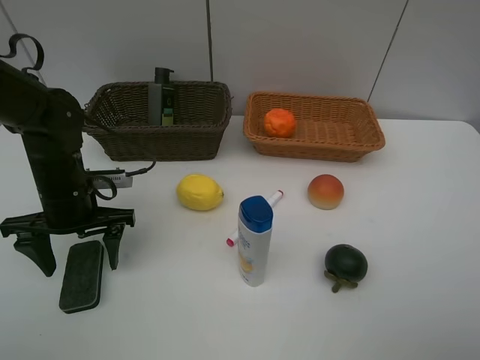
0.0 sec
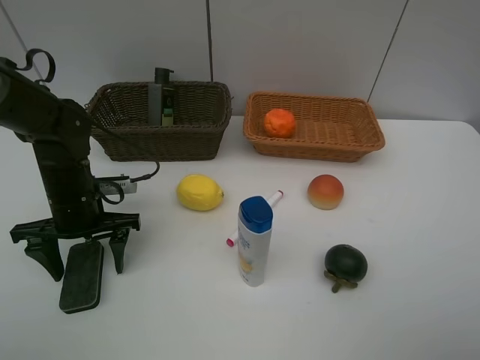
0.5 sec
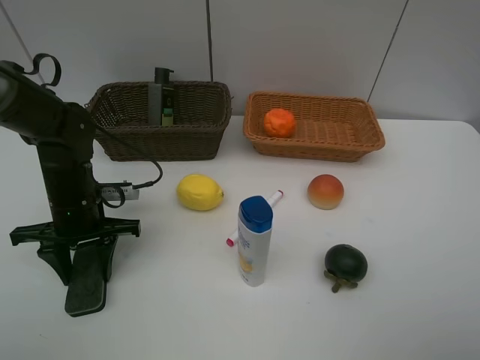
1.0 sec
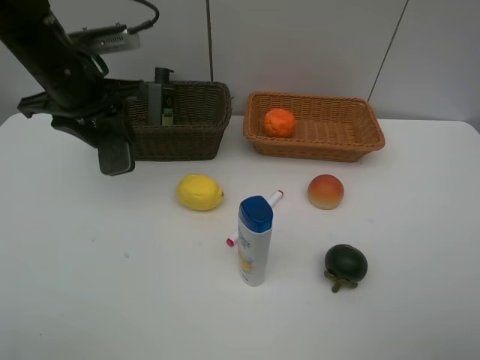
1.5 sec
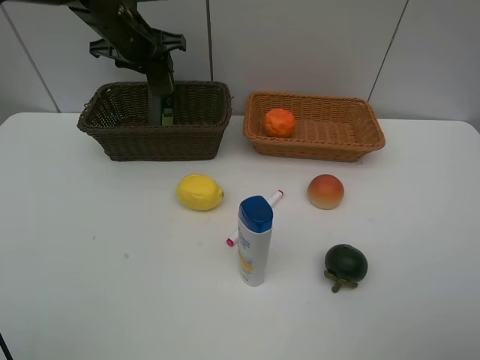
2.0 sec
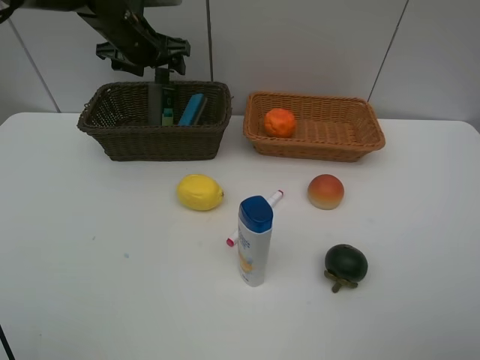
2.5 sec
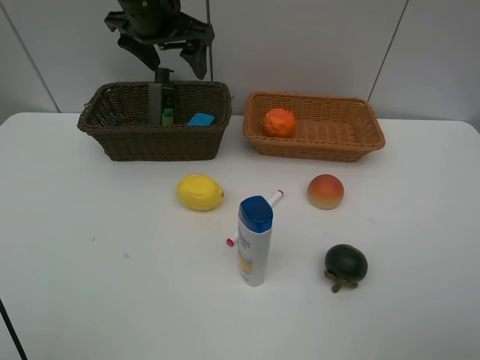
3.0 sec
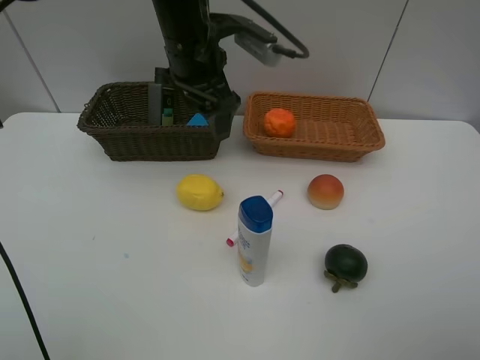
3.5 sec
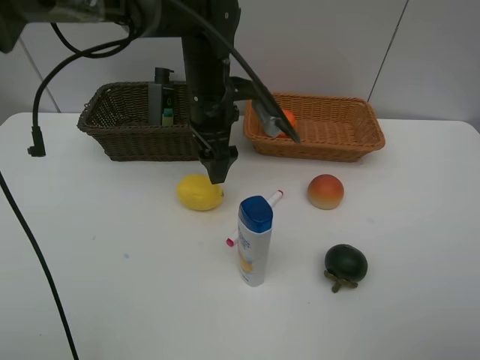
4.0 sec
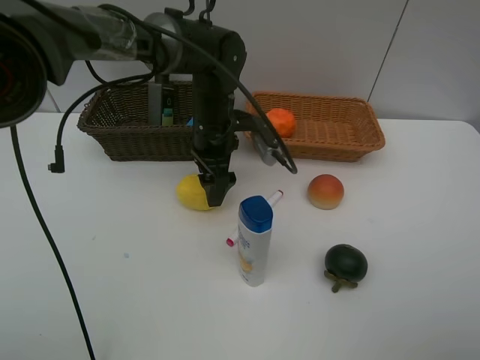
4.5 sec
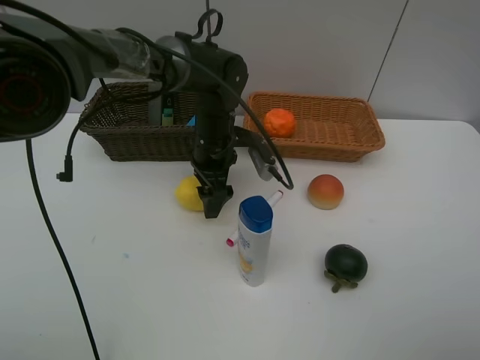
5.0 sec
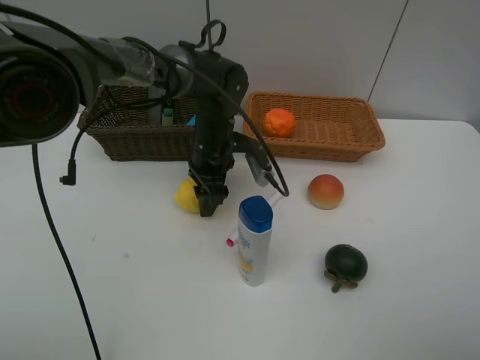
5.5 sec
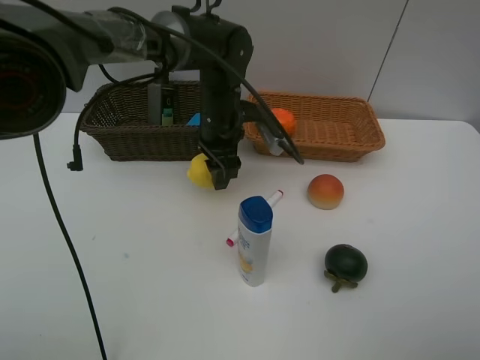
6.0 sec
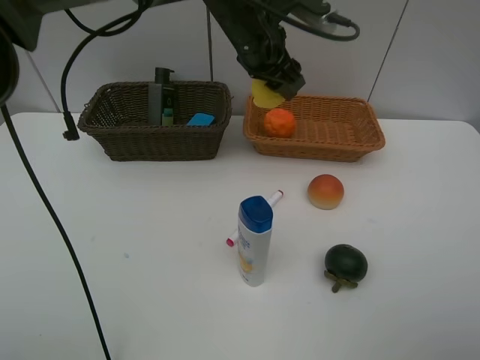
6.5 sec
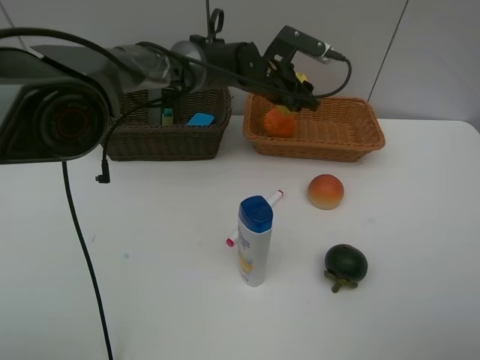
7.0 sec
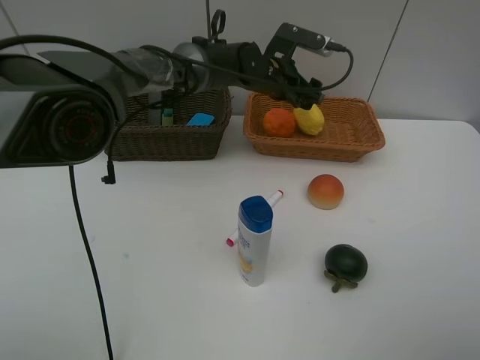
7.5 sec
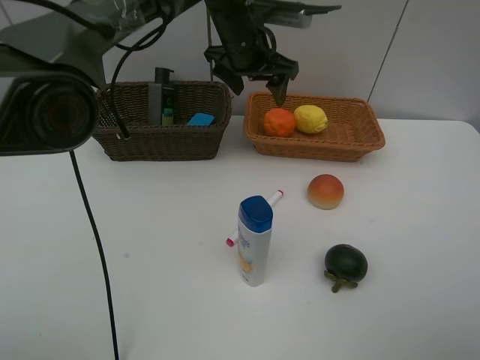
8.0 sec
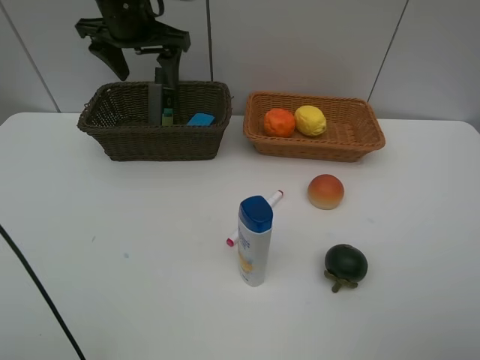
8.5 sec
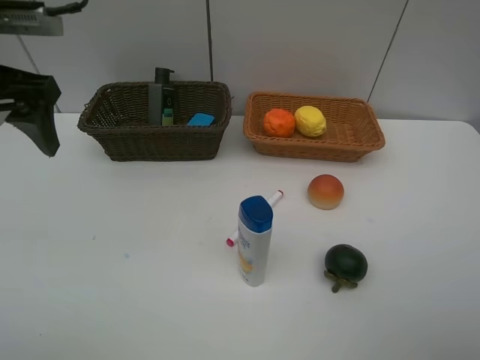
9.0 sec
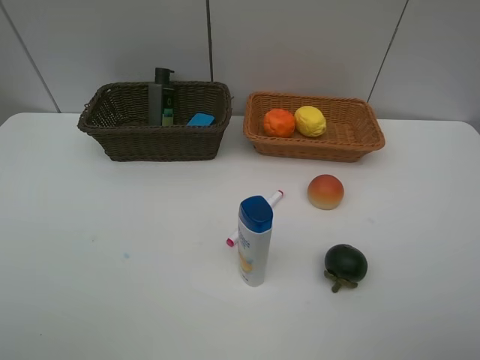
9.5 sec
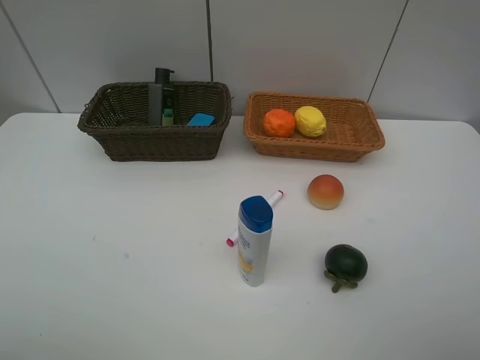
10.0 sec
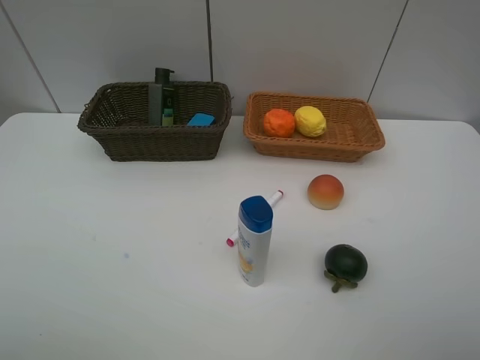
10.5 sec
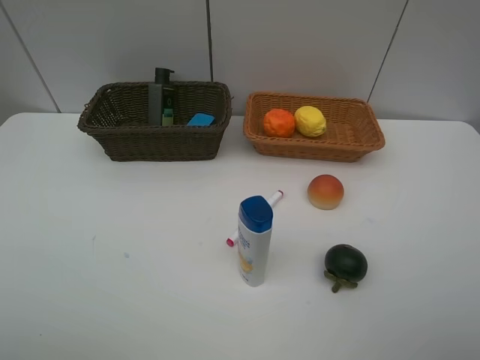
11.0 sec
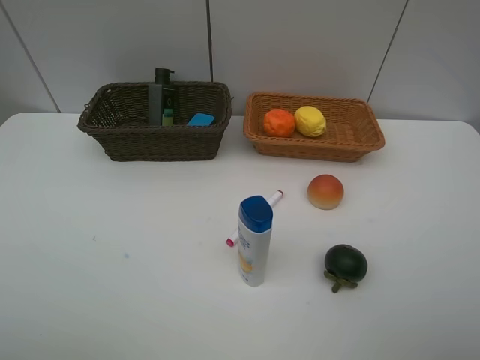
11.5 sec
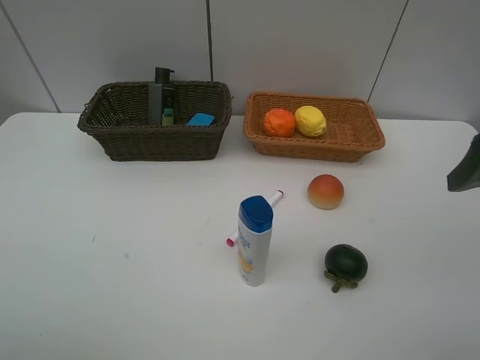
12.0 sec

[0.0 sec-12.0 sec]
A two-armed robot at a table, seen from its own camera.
Task of the whole recording: Place multiple objects separately in different baskets.
Step, 1.5 sec to 2.5 sec: Place the blackboard eraser in the dark basket with left gripper.
Step, 3.0 sec to 5.5 sec: Pick up the lemon with left gripper.
Step, 6.0 sec to 7.5 sec: Place the lemon in the light basket with left gripper.
0.0 sec to 2.0 sec: The left gripper moves forward and upward, about 25 cm, and closes up.
2.0 sec to 4.0 sec: The left gripper moves to the right and backward, roughly 20 cm, and opens its fingers.
4.0 sec to 6.0 sec: The left gripper closes.
6.0 sec to 8.0 sec: The left gripper goes up and down, about 10 cm each way, reversing 2 times, and opens up.
8.0 sec to 10.0 sec: The left gripper goes about 50 cm backward and to the left.
10.0 sec to 12.0 sec: The right gripper heads forward, covering roughly 20 cm.

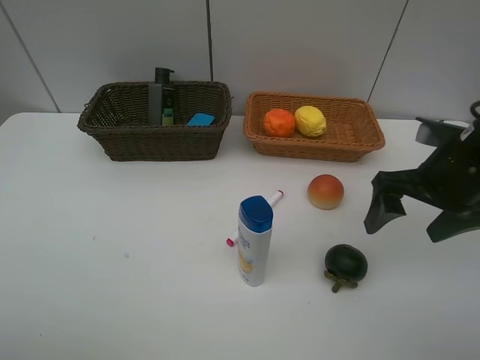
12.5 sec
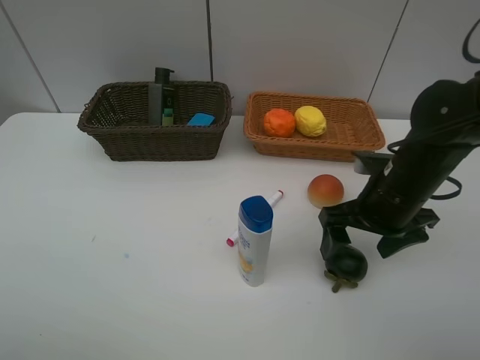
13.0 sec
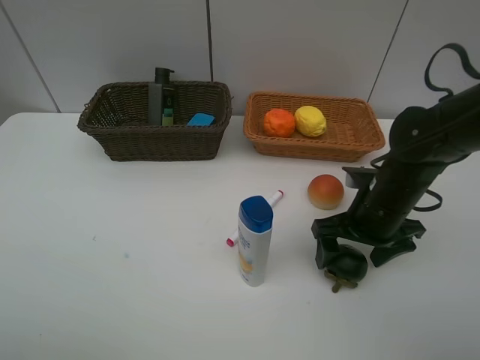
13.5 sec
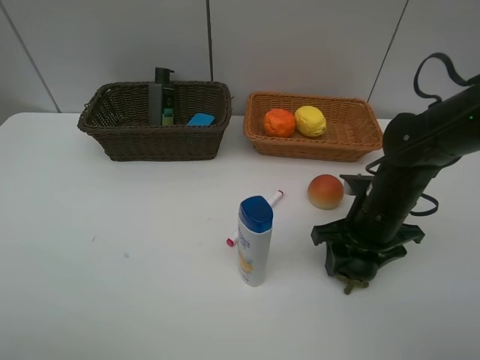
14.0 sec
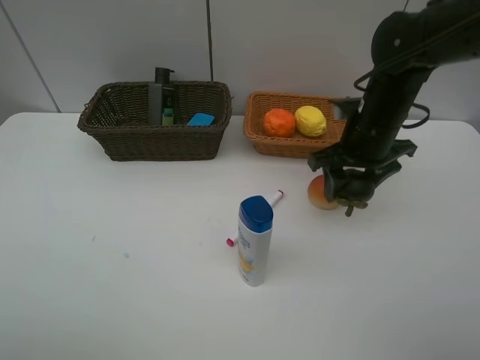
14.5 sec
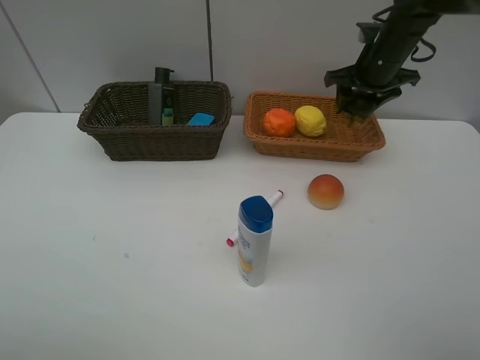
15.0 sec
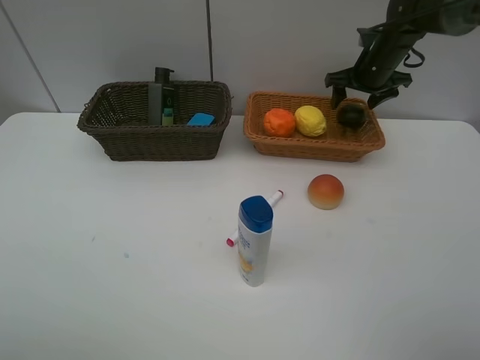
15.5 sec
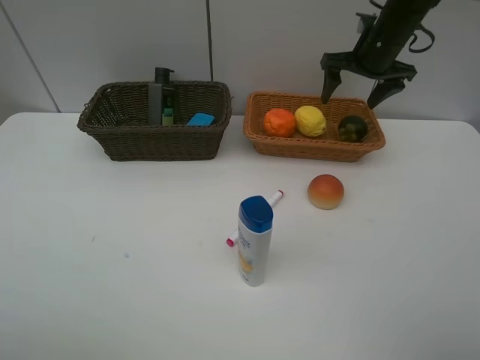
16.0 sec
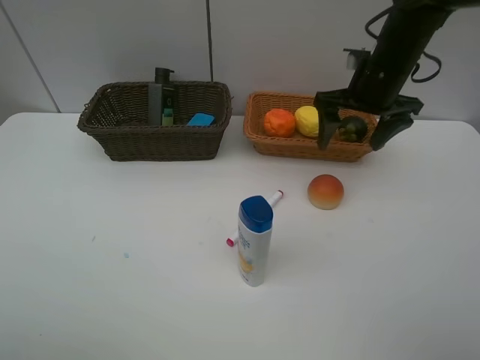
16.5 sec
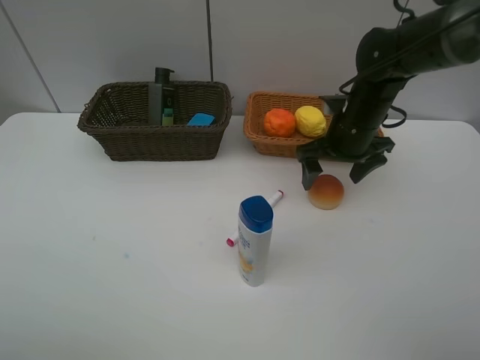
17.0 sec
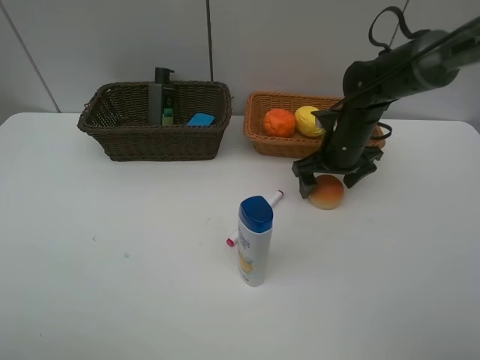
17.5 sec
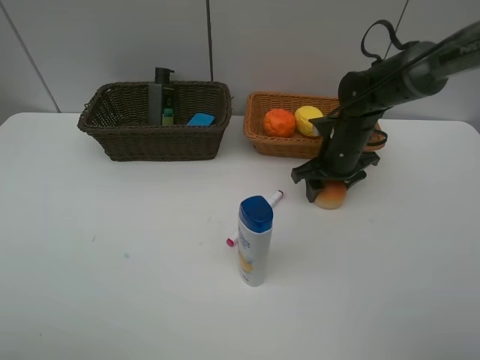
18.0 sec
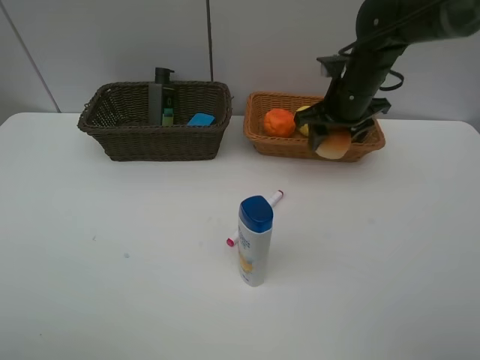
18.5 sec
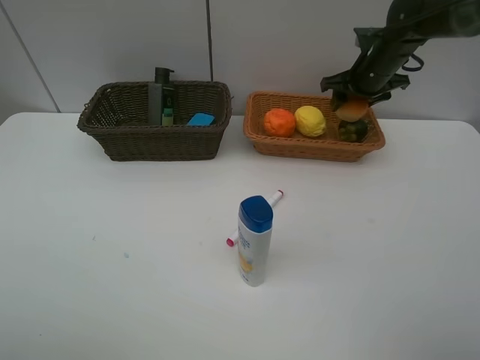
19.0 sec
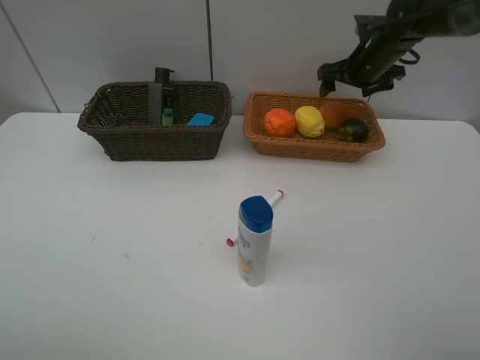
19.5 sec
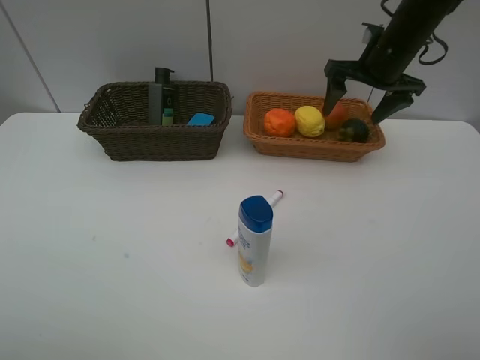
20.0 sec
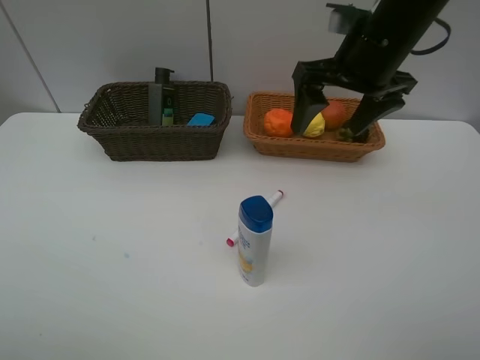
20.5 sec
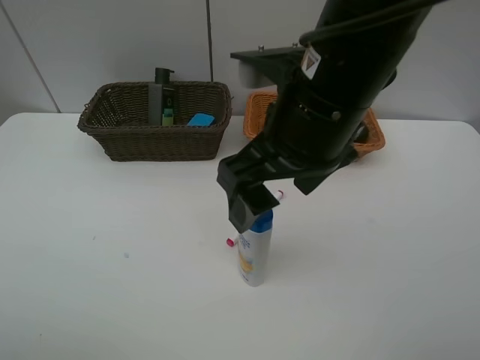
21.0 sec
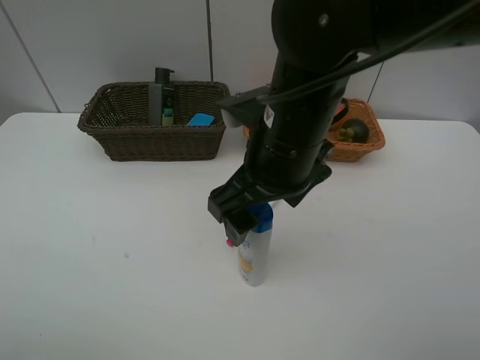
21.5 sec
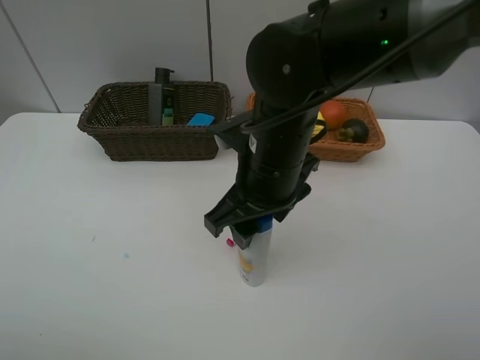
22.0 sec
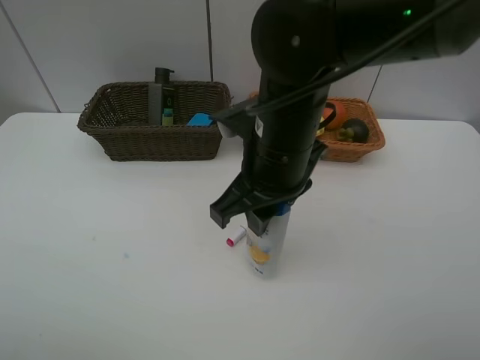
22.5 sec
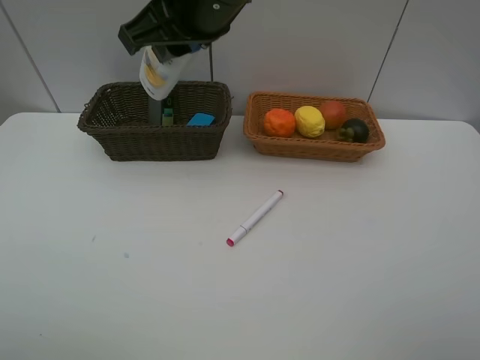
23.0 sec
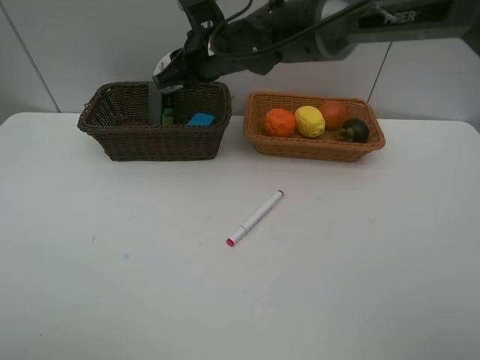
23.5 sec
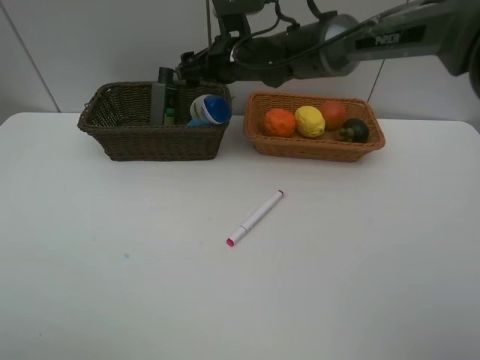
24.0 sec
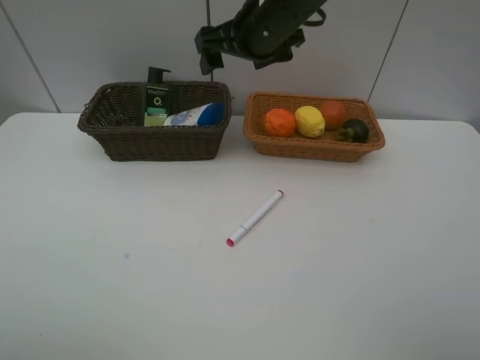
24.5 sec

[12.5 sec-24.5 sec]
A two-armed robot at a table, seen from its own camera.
Task of the whole recording: Place multiple objects separately in different baskets.
Step, 14.5 sec to 15.5 sec: Place the mangosteen in the light basket with right gripper.
Step, 16.0 sec to 18.0 sec: Pick up egg yolk pastry with right gripper.
Step, 18.5 sec to 19.5 sec: Place the egg yolk pastry in the light basket with right gripper.
Step, 20.0 sec to 22.5 sec: Pick up the shampoo with right gripper.
Step, 23.0 sec to 24.0 sec: Place the shampoo in the dark basket with right gripper.
12.5 sec to 14.5 sec: The right gripper shifts roughly 10 cm forward and to the left, and closes.
14.5 sec to 16.5 sec: The right gripper goes forward and returns, about 20 cm each way, and opens its fingers.
16.5 sec to 18.5 sec: The right gripper moves about 10 cm downward and comes back, and closes up.
18.5 sec to 20.5 sec: The right gripper heads backward and upward, covering approximately 15 cm, and opens up.
20.5 sec to 22.5 sec: The right gripper moves to the left, backward and downward, roughly 15 cm, and closes up.
22.5 sec to 24.5 sec: The right gripper heads forward, covering approximately 15 cm, and opens its fingers.

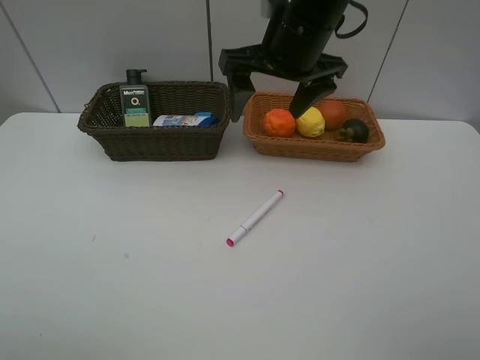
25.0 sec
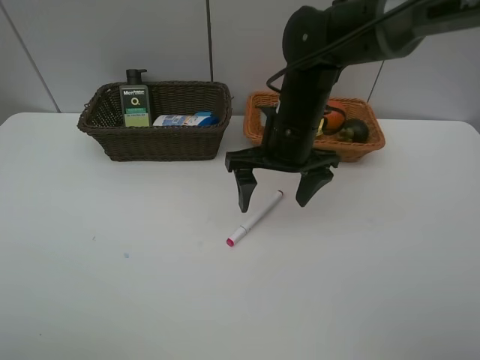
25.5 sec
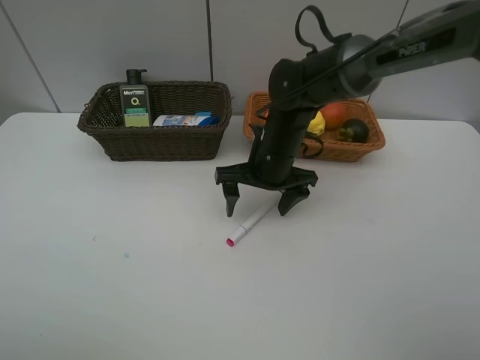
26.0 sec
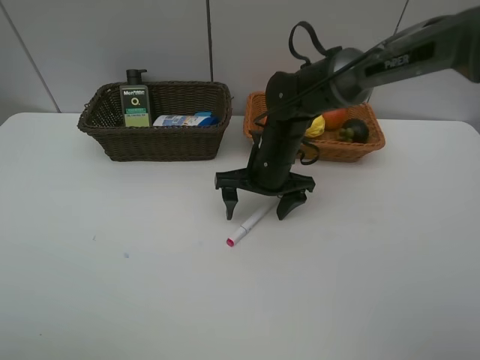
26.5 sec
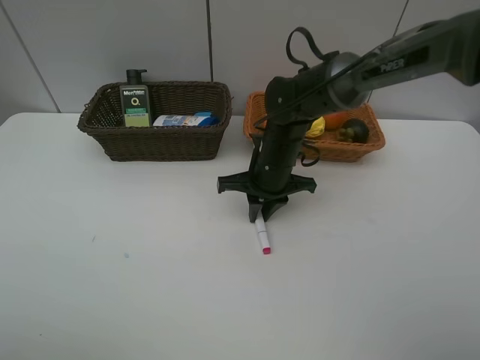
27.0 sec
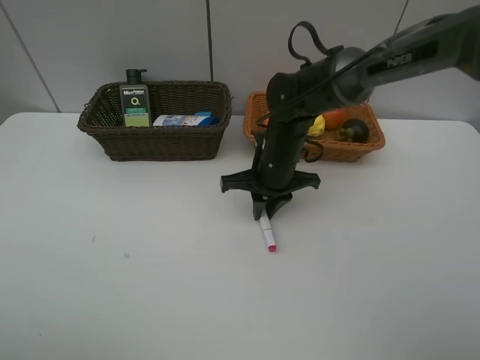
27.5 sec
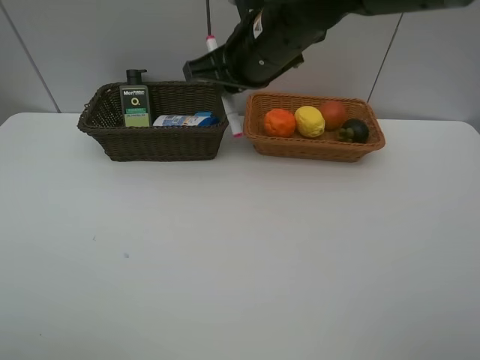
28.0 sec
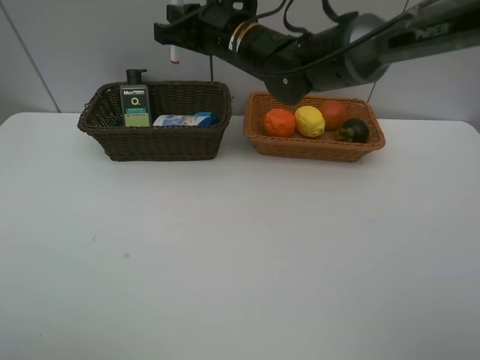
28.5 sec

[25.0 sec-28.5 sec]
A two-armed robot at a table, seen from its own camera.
Task of the whole recording: Place multiple objects separately in different baskets.
Step, 25.0 sec to 27.5 sec: Pick up the red marker with right gripper.
25.0 sec to 27.0 sec: The right gripper goes some 20 cm downward, and closes its fingers.
27.0 sec to 28.5 sec: The right gripper heads upward, forward and to the left, covering about 15 cm.
